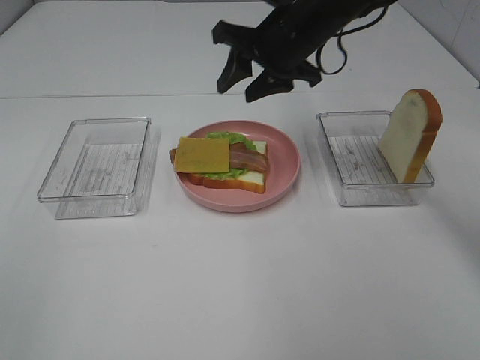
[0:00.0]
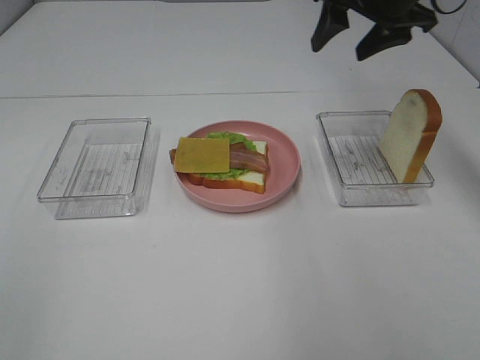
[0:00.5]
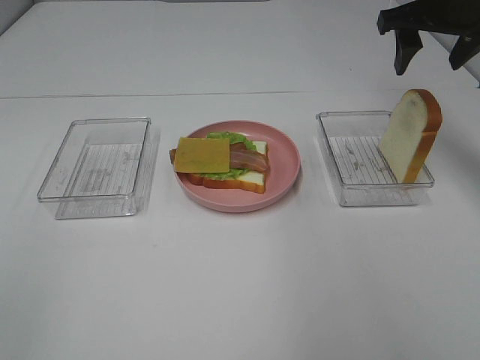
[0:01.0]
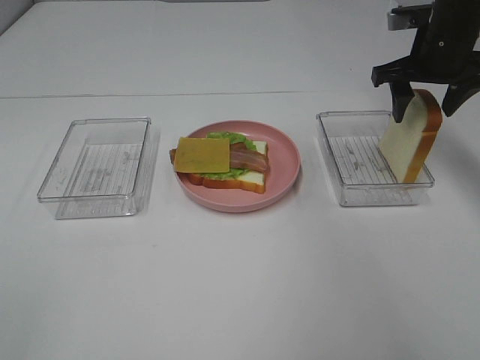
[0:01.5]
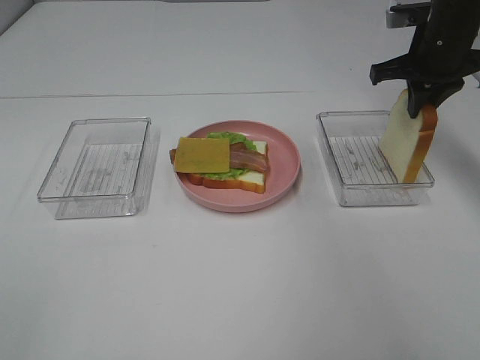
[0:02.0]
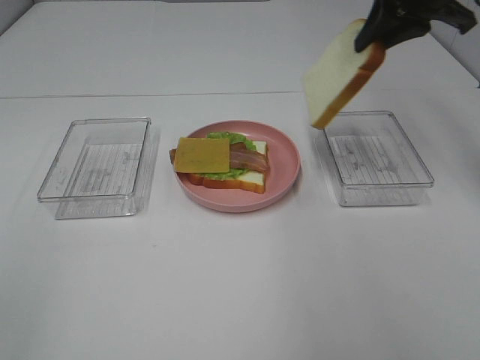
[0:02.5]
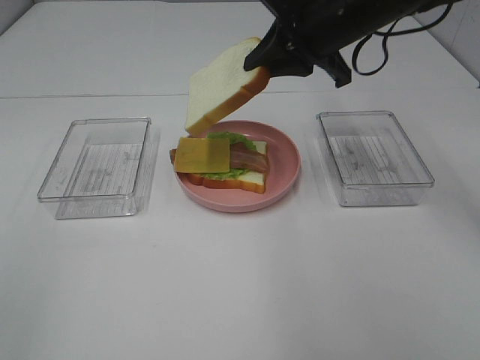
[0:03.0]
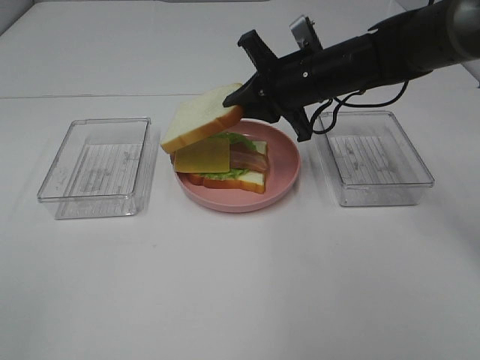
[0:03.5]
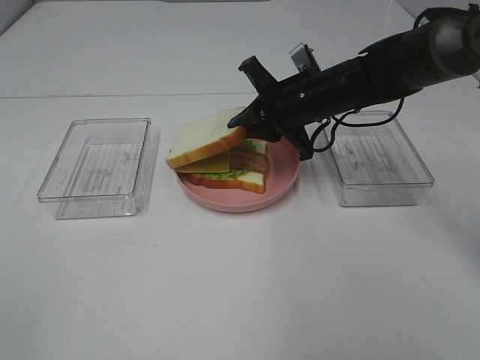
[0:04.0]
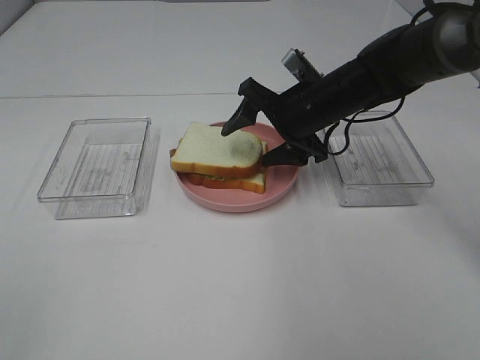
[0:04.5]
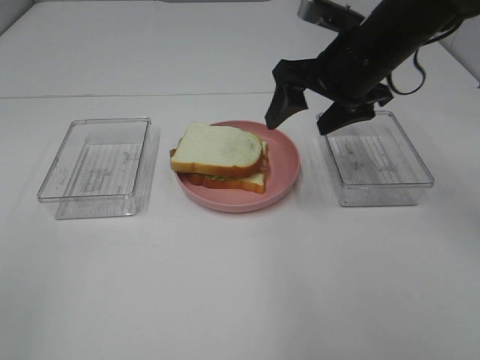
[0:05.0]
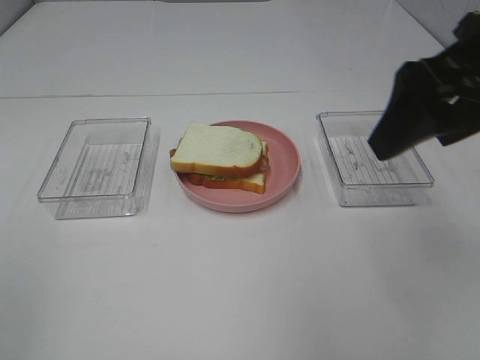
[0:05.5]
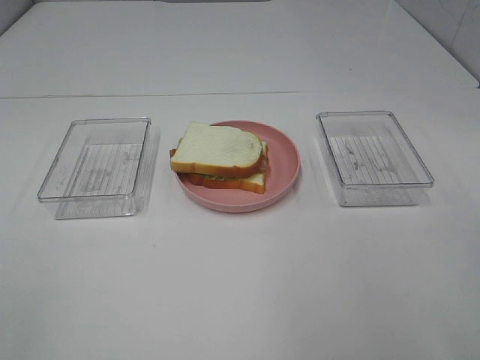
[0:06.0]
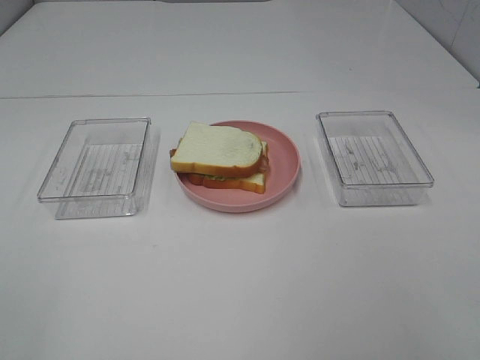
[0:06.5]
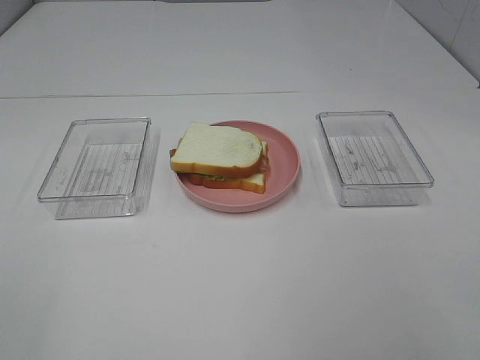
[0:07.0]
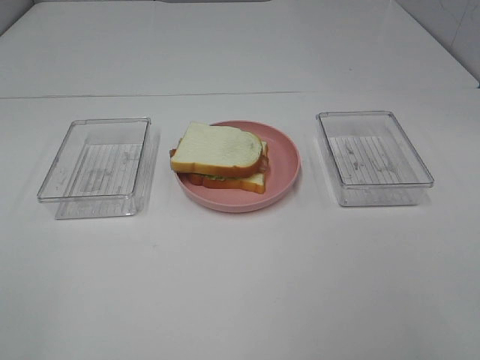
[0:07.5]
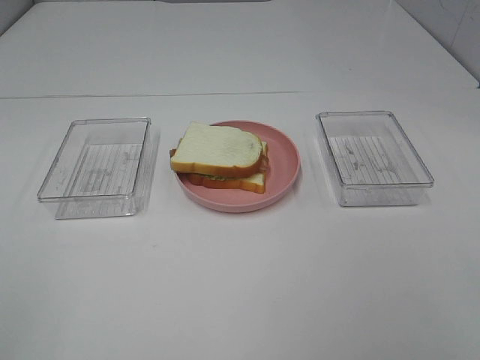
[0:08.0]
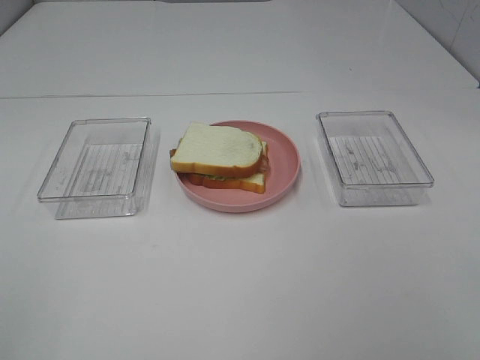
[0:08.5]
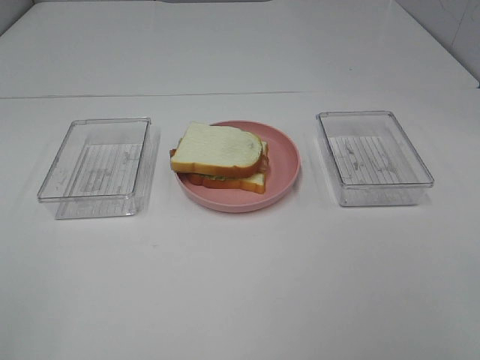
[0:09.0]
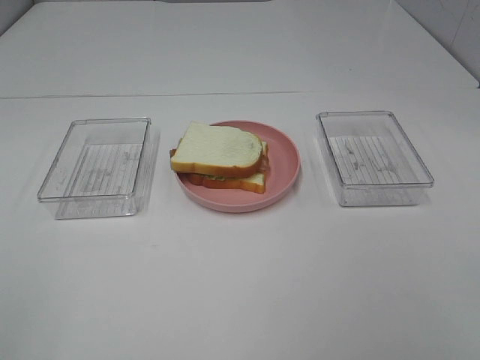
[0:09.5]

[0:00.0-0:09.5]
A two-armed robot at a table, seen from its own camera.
Task of the whole recording: Make sandwiches.
Step, 0:00.0 to 0:02.0: Right hand:grab the bread slice.
Step, 0:02.5 to 0:04.5: Right hand:place the bread slice on the cheese slice.
0:00.0 to 0:02.0: The right gripper shifts approximately 15 cm to the right, and closes.
0:02.0 to 0:04.0: The right gripper heads to the left and downward, covering about 15 cm.
0:04.0 to 0:05.5: The right gripper goes about 30 cm backward, upward and to the right, and opens.
0:05.5 to 0:07.5: The right gripper moves backward and to the right, approximately 20 cm.

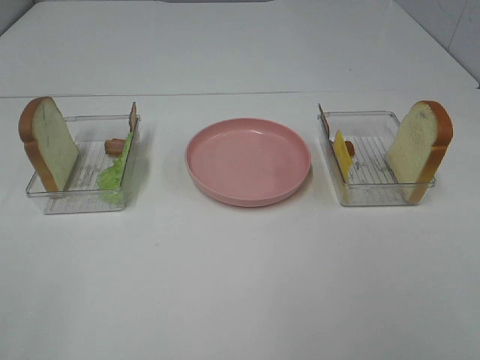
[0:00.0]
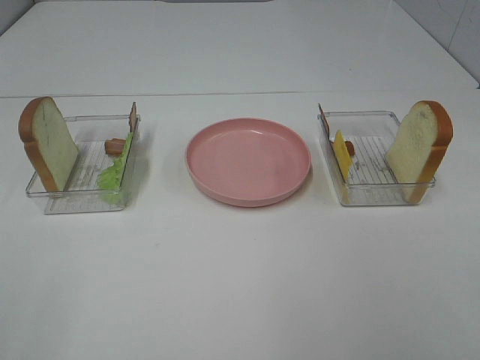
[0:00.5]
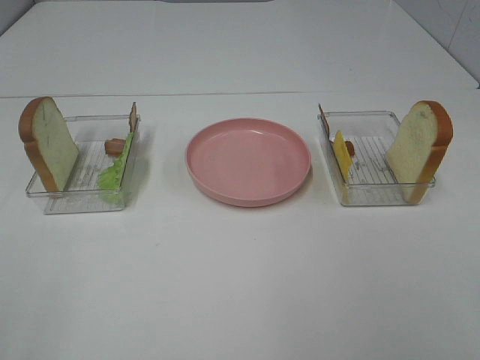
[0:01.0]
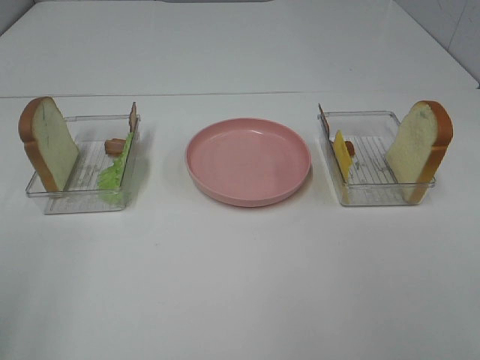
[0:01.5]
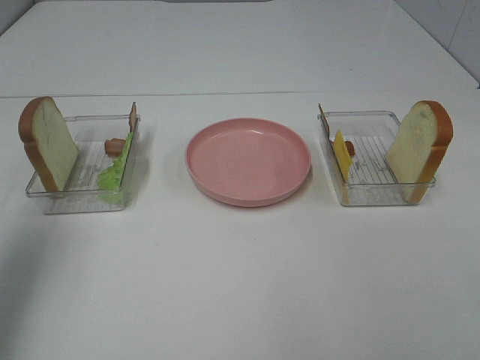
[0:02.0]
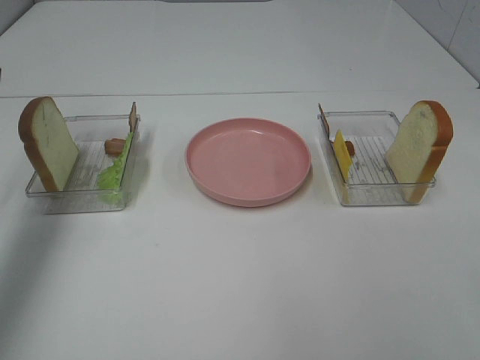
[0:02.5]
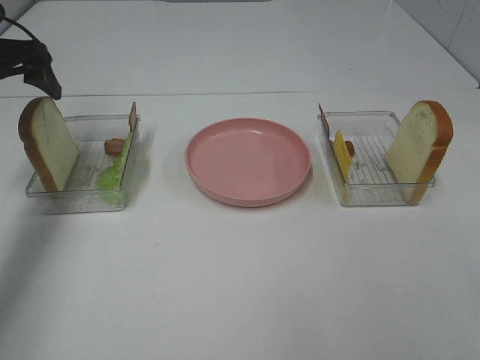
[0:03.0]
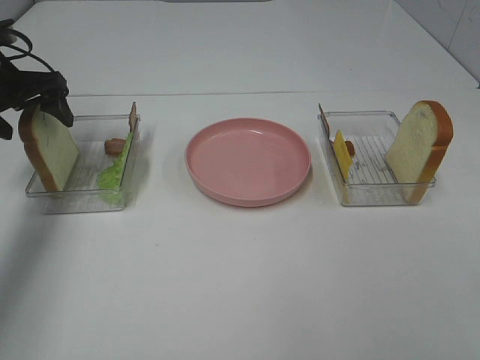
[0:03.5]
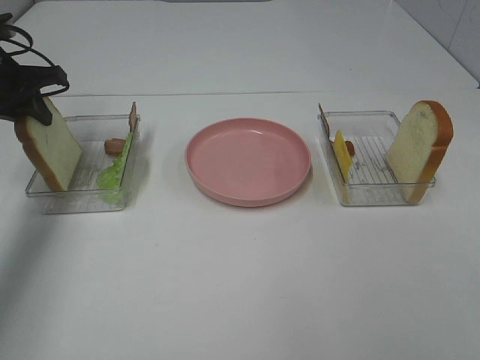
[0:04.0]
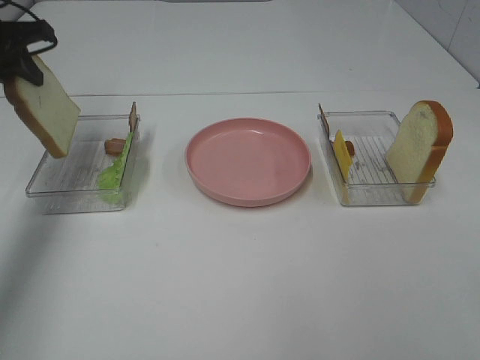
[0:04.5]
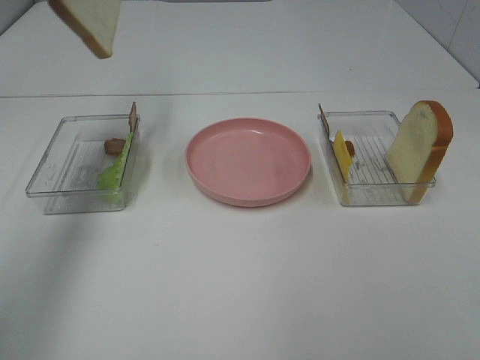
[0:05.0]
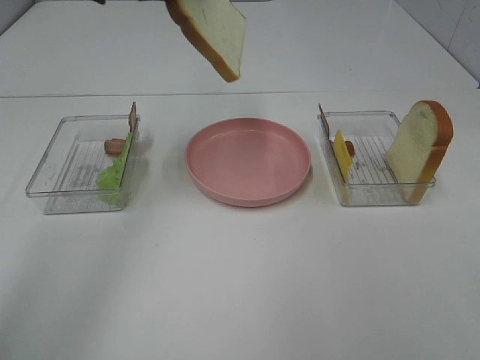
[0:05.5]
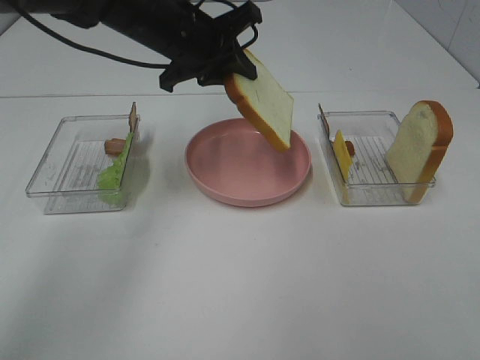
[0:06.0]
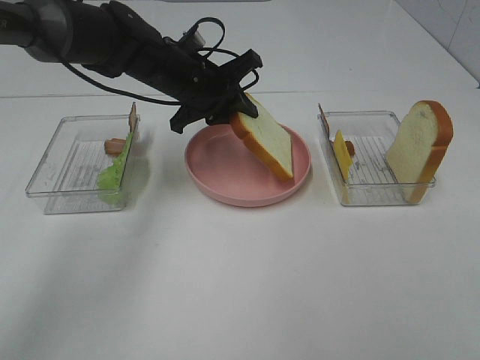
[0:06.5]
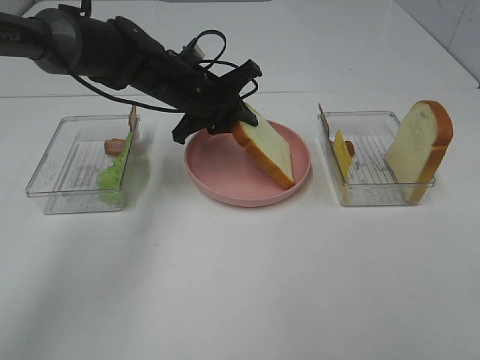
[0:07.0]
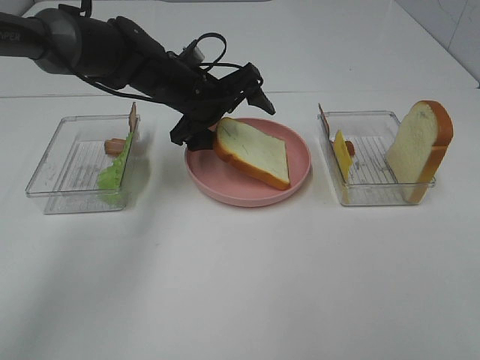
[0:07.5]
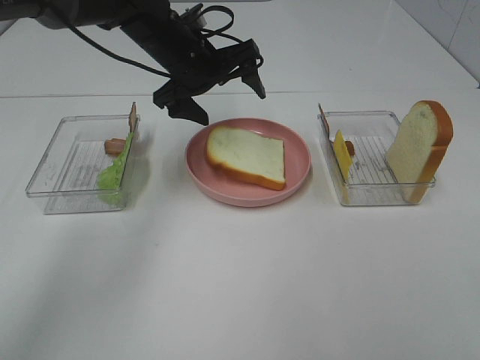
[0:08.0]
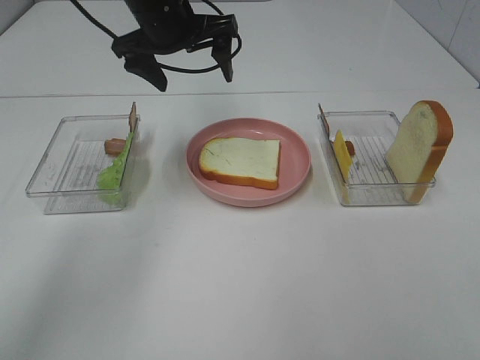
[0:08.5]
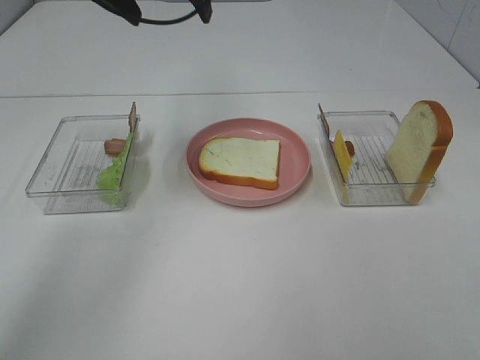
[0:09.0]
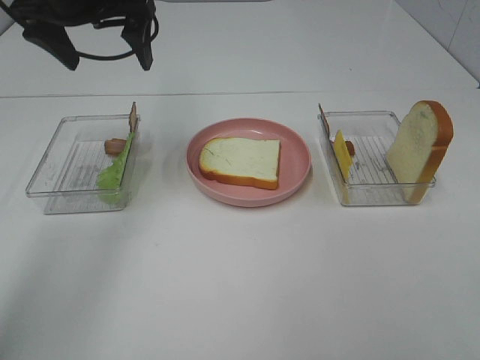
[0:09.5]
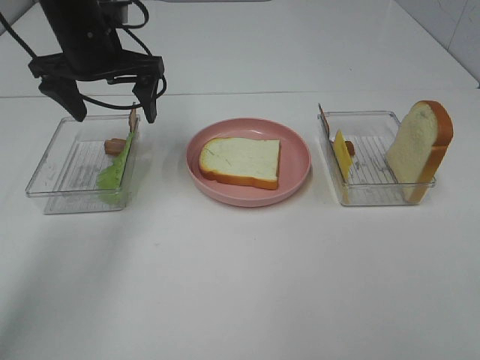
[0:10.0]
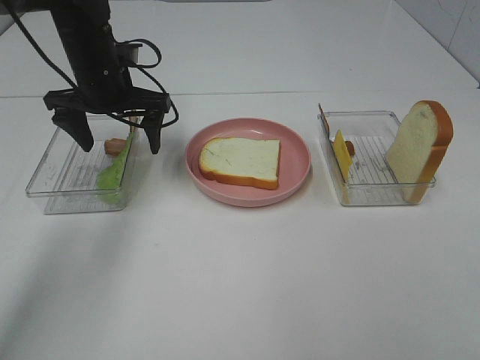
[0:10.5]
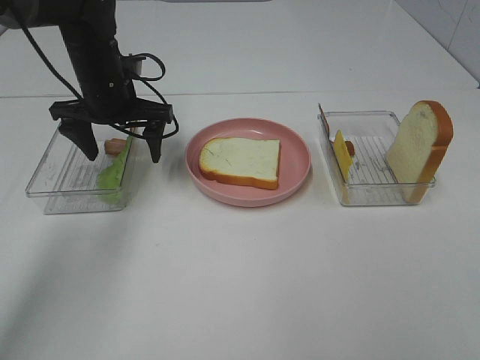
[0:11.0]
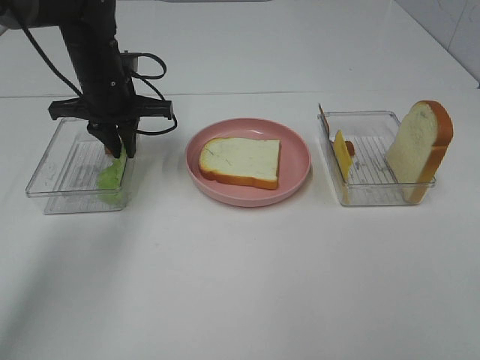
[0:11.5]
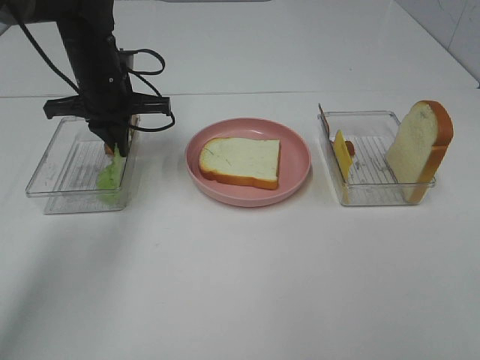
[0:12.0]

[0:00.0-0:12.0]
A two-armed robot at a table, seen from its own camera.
Task of the whole recording: Make sandwiches.
Step, 0:00.0 to 0:03.5: Left hand:grab the bread slice.
Step, 0:04.0 to 0:08.0: Left hand:place the bread slice on the plate.
Step, 0:08.5 to 0:11.5: Left hand:grab the lettuce slice.
0:00.0 to 0:02.0: The left gripper shifts roughly 20 cm forward.
0:02.0 to 0:04.0: The left gripper travels forward and downward by roughly 25 cm, and closes its fingers.
0:04.0 to 0:06.0: The left gripper heads to the right, covering about 25 cm.
0:06.0 to 0:08.0: The left gripper opens its fingers.
0:08.0 to 0:10.0: The left gripper goes approximately 10 cm to the left, and goes upward and returns, some 15 cm each way.
0:10.0 to 0:12.0: The left gripper heads downward, covering approximately 5 cm, and closes its fingers.

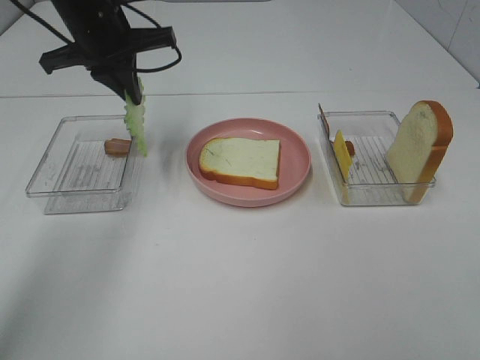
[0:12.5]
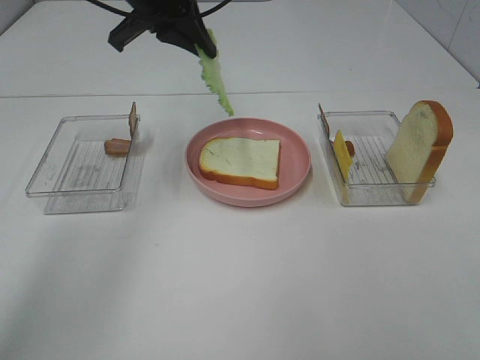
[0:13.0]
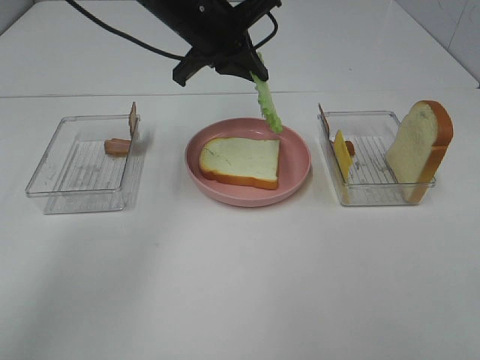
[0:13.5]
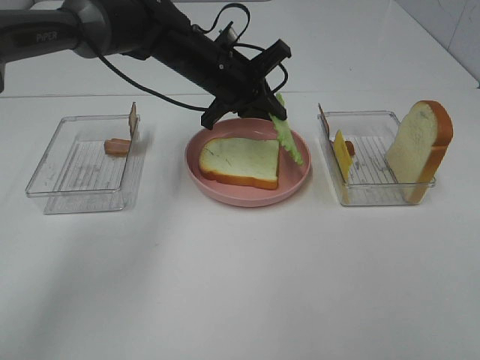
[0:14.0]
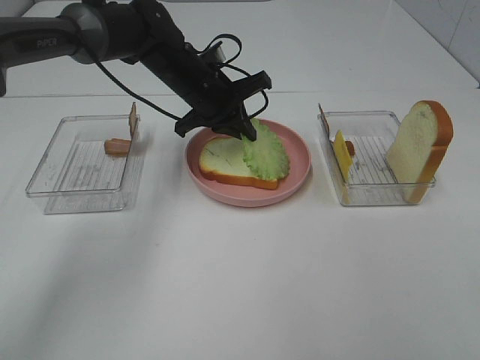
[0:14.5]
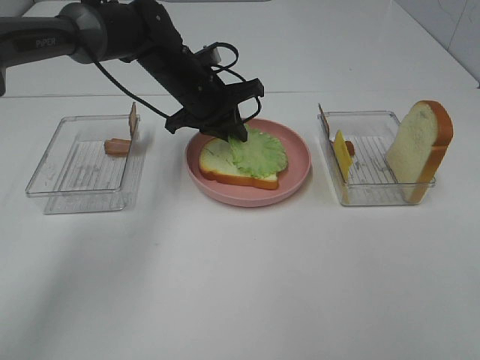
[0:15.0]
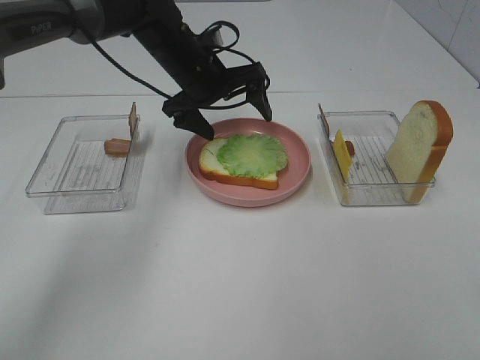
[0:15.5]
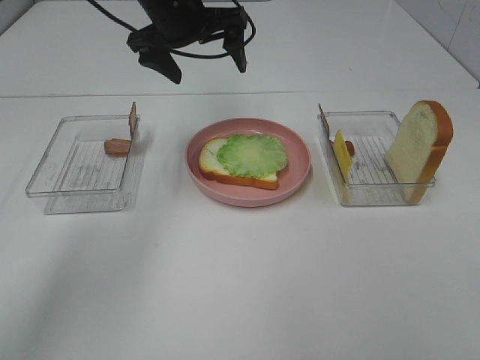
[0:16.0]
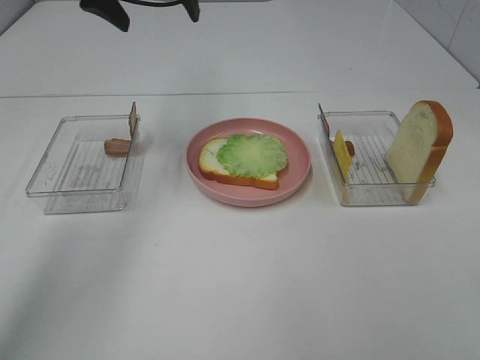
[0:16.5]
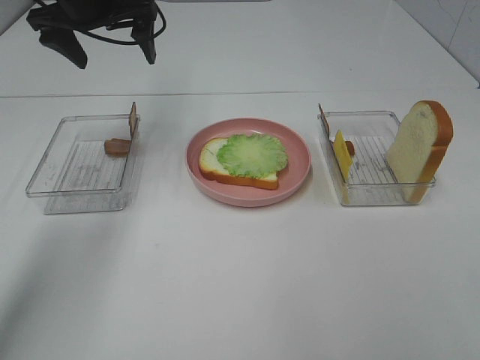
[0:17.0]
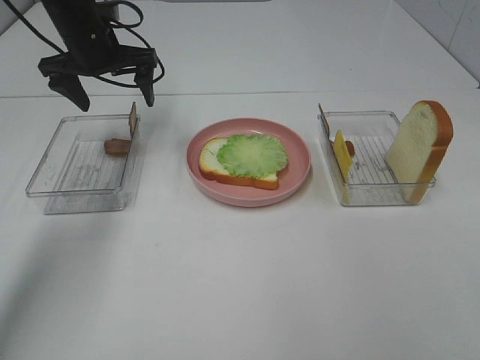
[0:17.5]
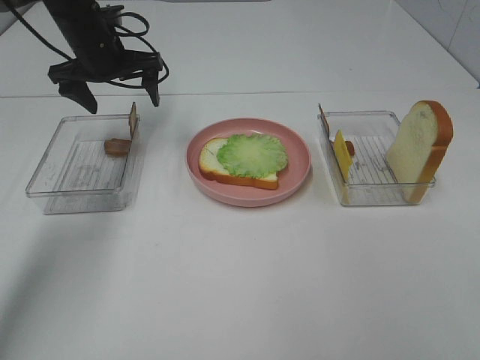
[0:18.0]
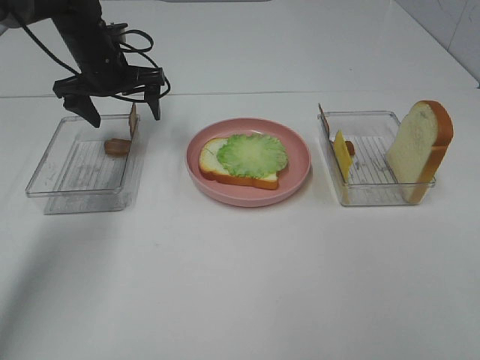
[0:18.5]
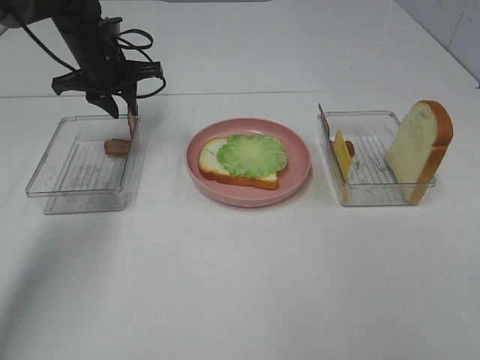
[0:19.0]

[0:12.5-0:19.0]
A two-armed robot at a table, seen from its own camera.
Task of the whole recording: Make sandwiches.
Step, 0:12.5 to 0:15.0: Left hand:place the lettuce slice on the bread slice.
0:12.5 to 0:14.5: The left gripper goes about 15 cm downward and to the right.
0:14.5 to 0:17.0: The left gripper heads to the left and upward, covering approximately 20 cm, and opens up.
0:17.0 to 0:19.0: The left gripper moves downward, about 10 cm, and closes its fingers.
